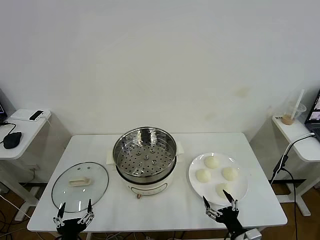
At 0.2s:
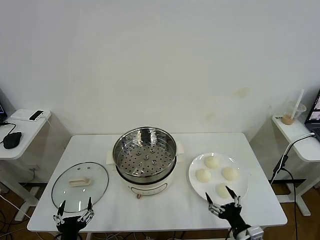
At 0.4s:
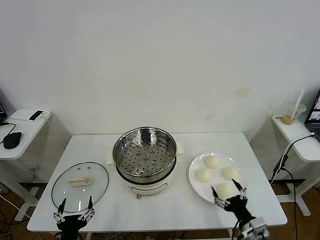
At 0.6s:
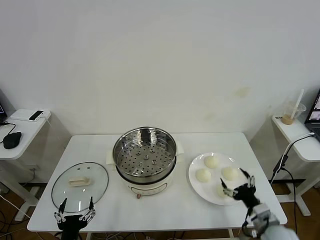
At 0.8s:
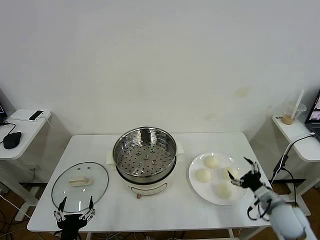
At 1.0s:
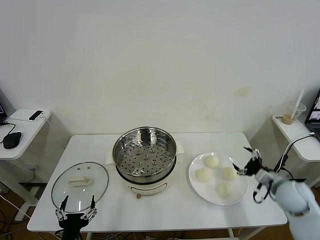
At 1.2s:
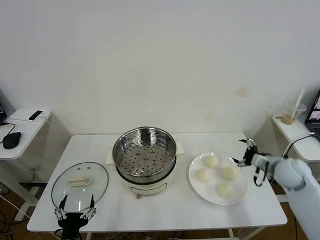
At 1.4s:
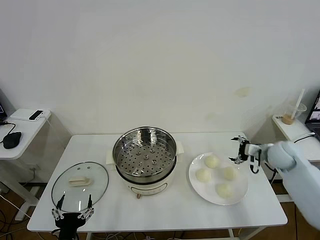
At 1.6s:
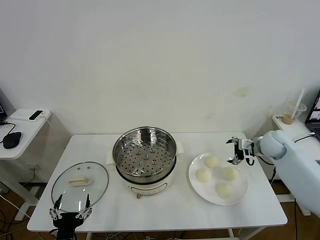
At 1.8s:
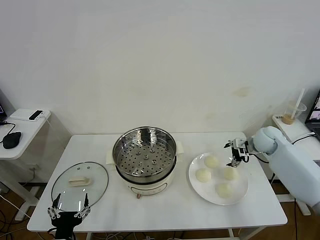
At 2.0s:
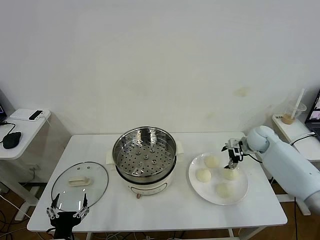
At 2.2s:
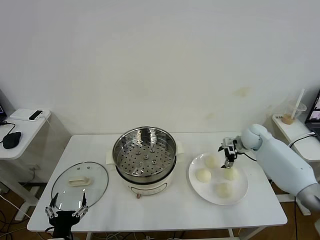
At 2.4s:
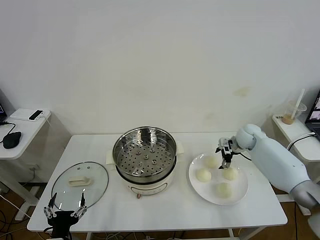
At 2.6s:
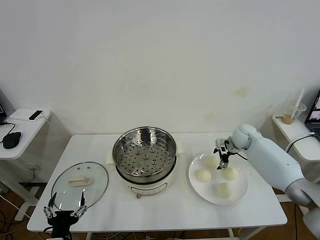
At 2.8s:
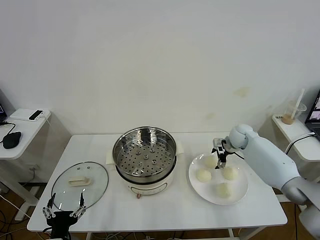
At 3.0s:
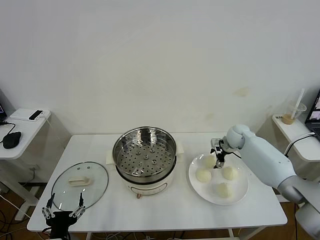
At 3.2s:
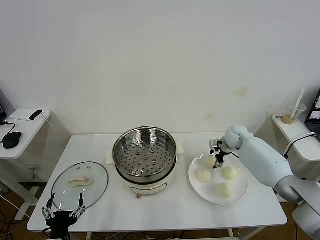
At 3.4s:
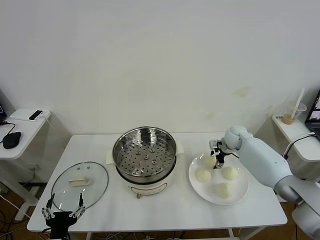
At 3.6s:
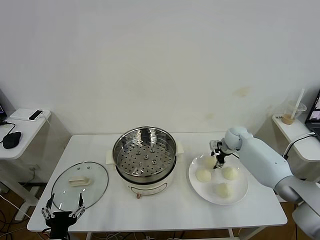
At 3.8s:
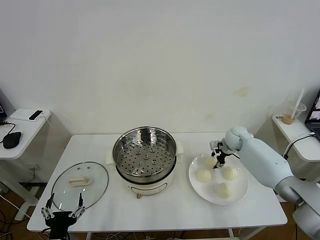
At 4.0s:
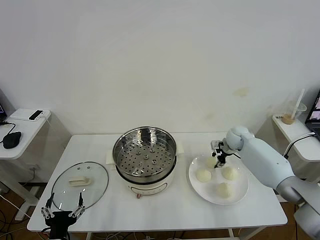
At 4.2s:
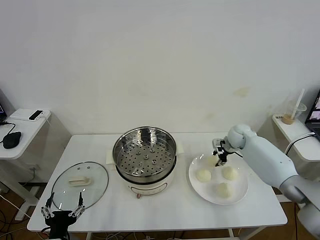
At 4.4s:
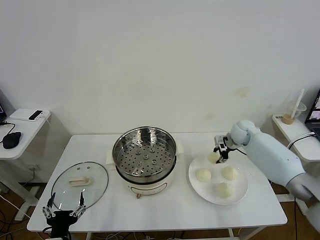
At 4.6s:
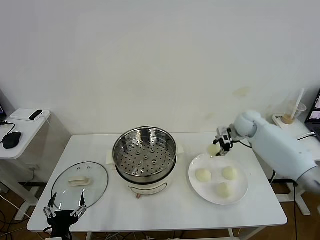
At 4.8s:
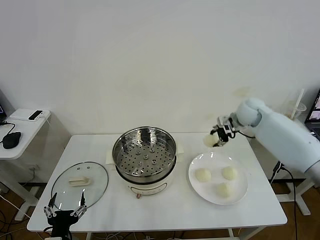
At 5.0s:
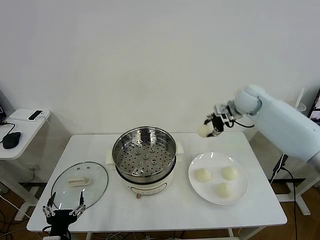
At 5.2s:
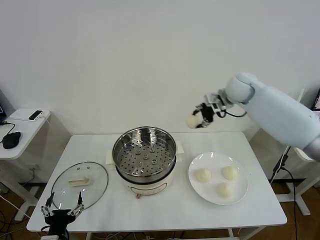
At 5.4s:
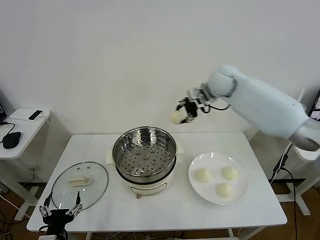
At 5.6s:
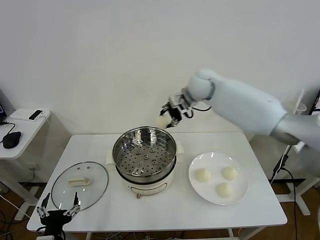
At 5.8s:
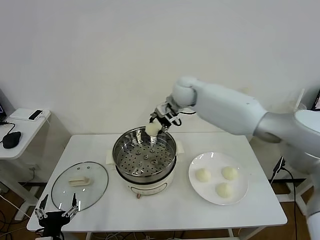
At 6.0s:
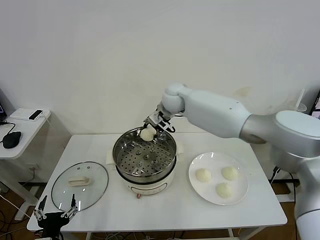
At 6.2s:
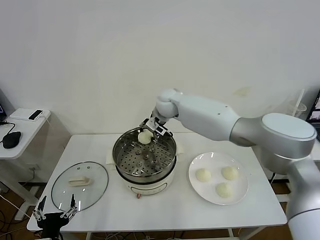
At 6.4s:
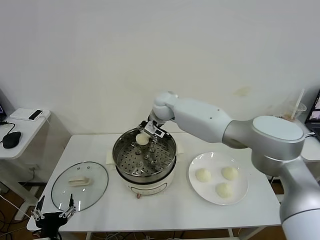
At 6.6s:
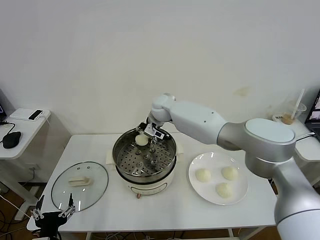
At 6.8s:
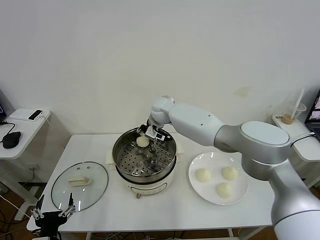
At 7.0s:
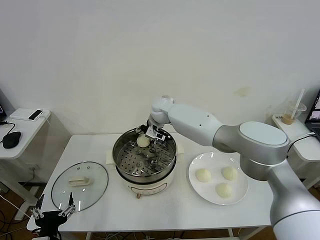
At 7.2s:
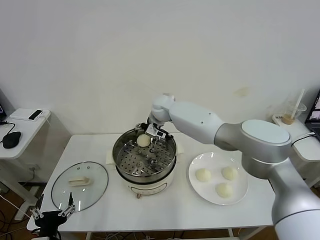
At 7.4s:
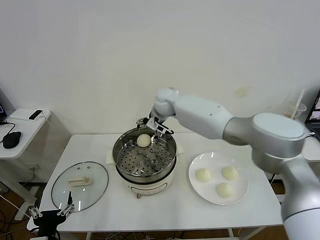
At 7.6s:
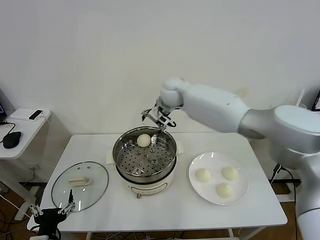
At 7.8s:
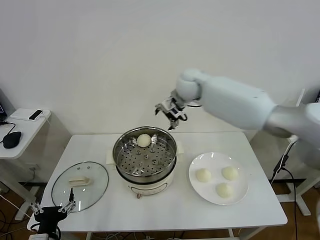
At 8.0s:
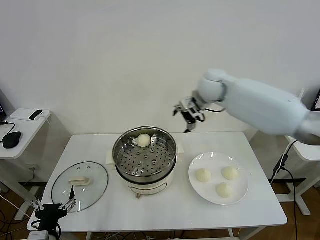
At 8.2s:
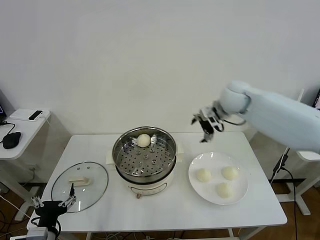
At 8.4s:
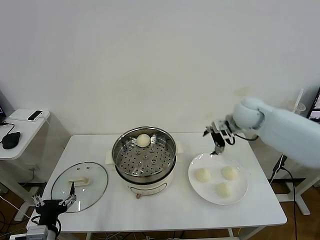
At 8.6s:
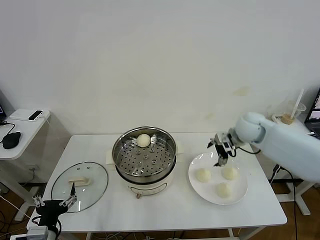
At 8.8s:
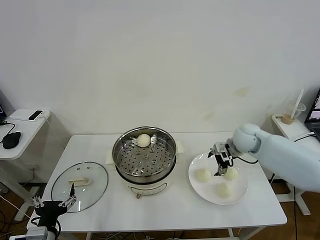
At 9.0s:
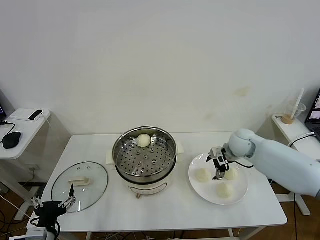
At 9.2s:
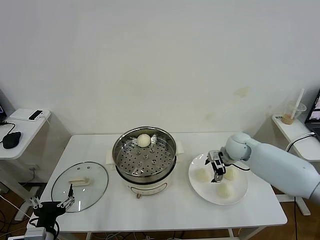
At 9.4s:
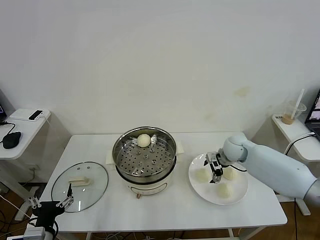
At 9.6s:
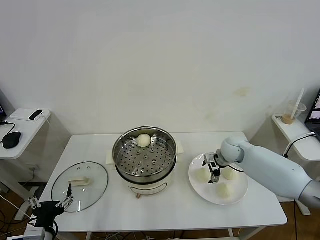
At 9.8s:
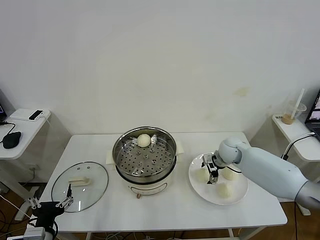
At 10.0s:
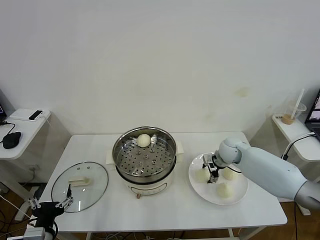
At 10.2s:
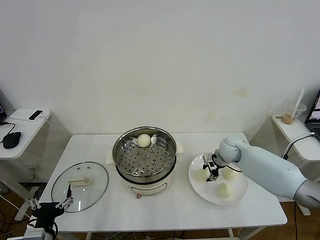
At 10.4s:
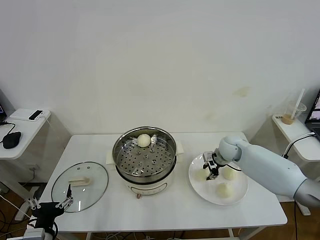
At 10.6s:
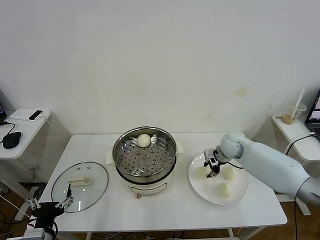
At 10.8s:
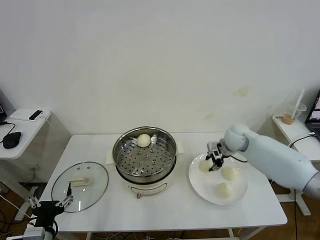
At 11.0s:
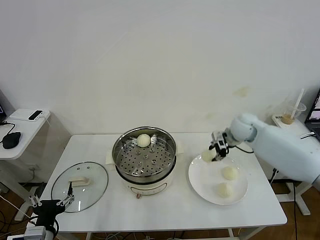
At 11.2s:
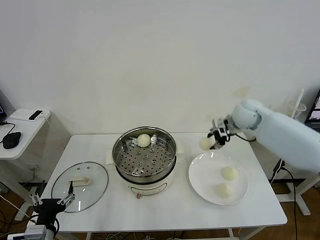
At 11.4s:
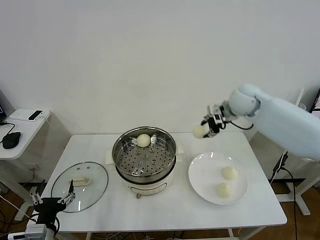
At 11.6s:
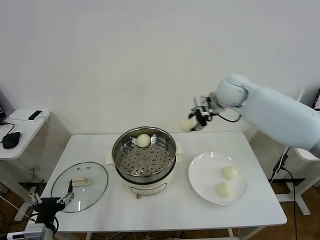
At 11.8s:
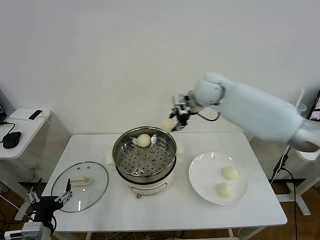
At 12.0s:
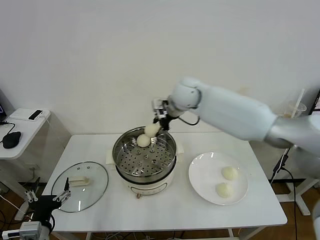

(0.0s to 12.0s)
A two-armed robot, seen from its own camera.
Task of the whole recording: take steamed baozi put them in steamer then cover it.
Step, 0.0s - 3.8s: Grasp the baozi in the plate with right gripper.
Step, 4.0s - 7.0s: Place the baozi on the steamer with right gripper.
Step, 7.4s - 10.2s: Grasp the baozi in the plate with right gripper.
1.6s - 3.0s: The right gripper moves to the left, forward and downward, roughly 10 cm.
3.0s - 4.4s: The right gripper shifts approximately 5 cm upward, and closes up.
4.4s - 6.0s: The right gripper travels to the left by approximately 30 cm.
6.0s - 7.6s: The right gripper is displaced upward by some 5 cm, and opens.
7.6s - 9.0s: The right gripper is displaced to the right, downward and backward by roughly 30 cm.
9.0s - 10.4s: The right gripper closes its fingers.
10.4s - 12.0s: The right gripper moves to the left and upward, approximately 30 cm.

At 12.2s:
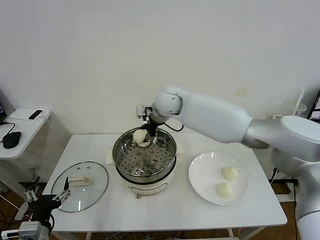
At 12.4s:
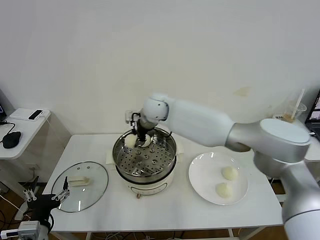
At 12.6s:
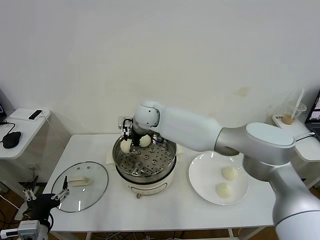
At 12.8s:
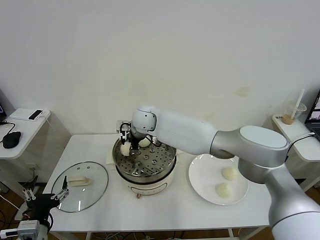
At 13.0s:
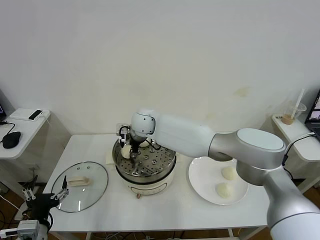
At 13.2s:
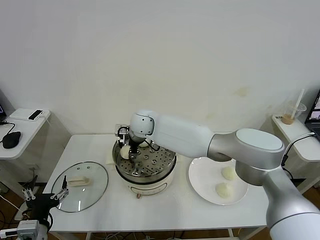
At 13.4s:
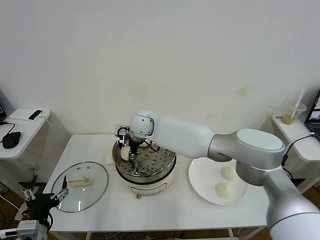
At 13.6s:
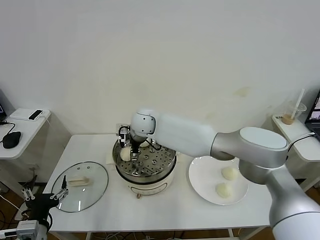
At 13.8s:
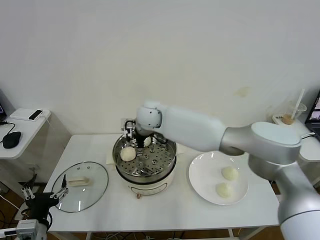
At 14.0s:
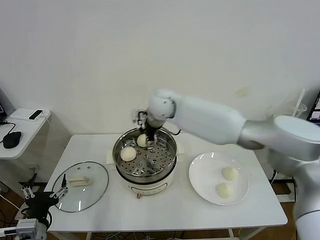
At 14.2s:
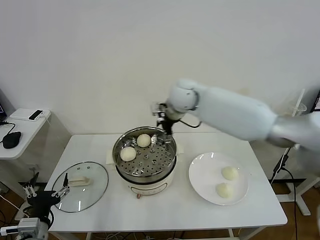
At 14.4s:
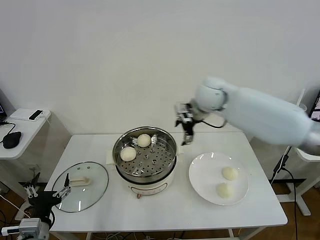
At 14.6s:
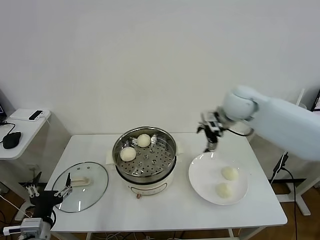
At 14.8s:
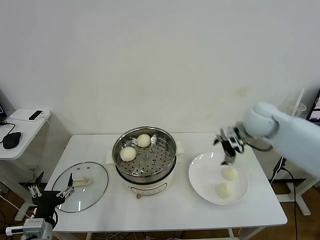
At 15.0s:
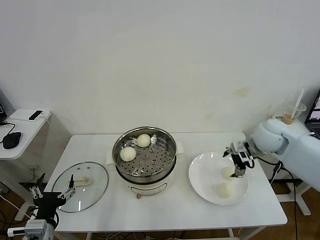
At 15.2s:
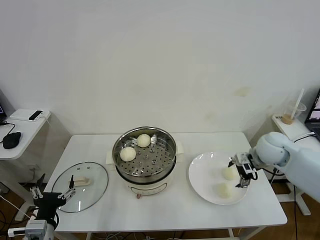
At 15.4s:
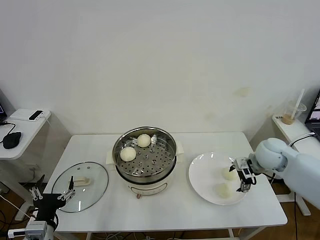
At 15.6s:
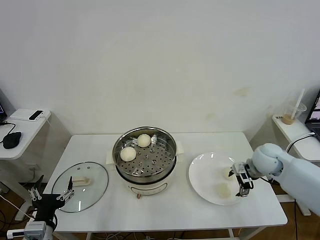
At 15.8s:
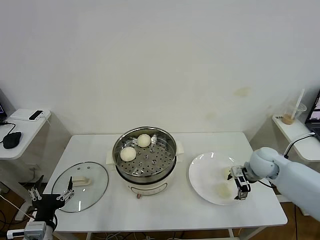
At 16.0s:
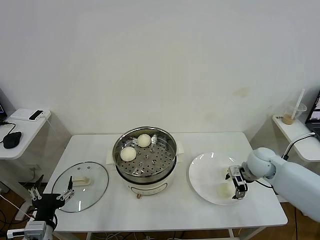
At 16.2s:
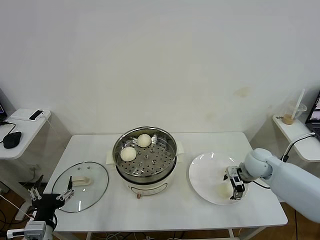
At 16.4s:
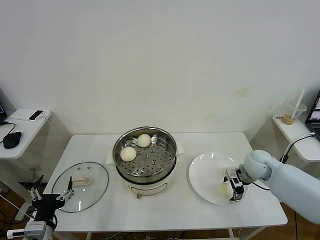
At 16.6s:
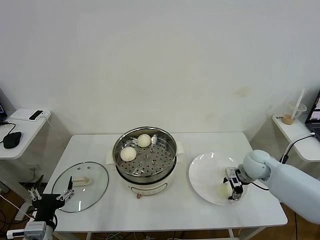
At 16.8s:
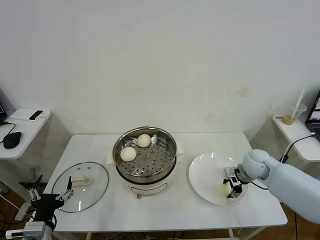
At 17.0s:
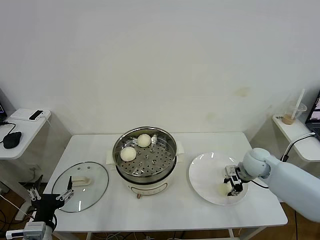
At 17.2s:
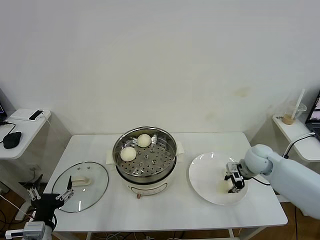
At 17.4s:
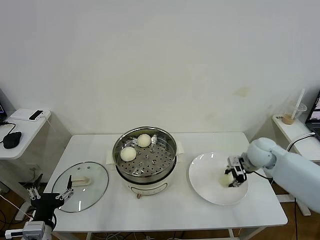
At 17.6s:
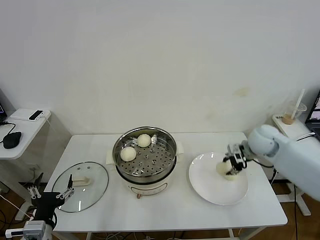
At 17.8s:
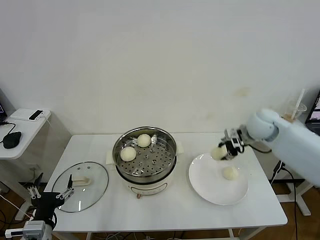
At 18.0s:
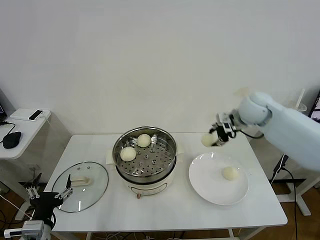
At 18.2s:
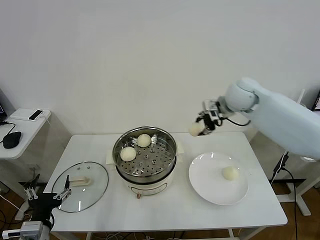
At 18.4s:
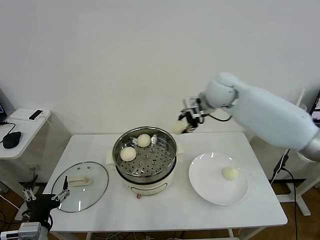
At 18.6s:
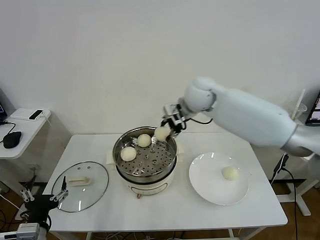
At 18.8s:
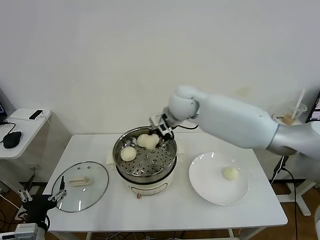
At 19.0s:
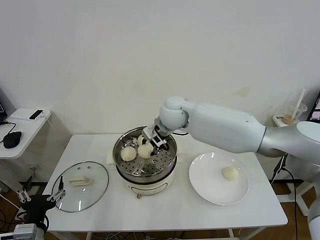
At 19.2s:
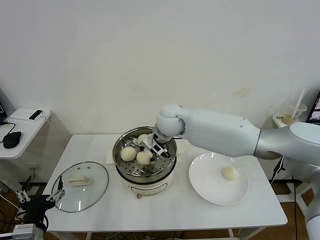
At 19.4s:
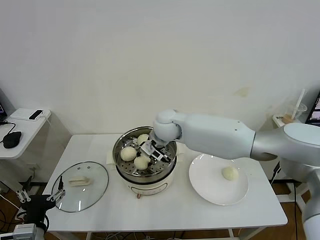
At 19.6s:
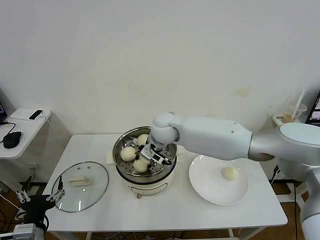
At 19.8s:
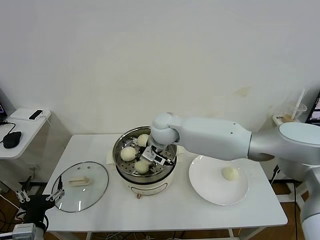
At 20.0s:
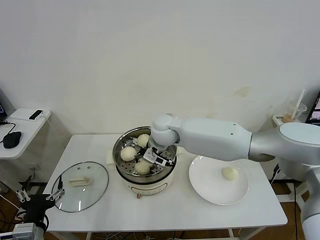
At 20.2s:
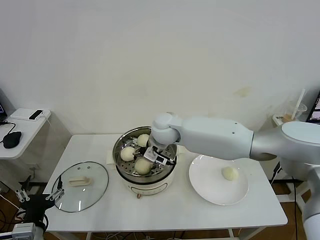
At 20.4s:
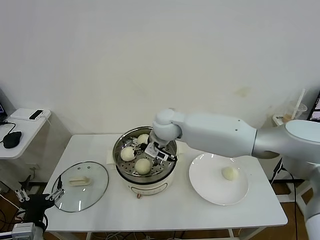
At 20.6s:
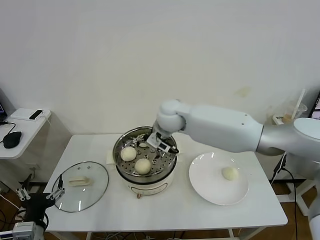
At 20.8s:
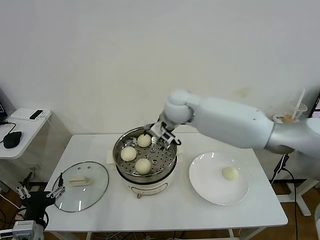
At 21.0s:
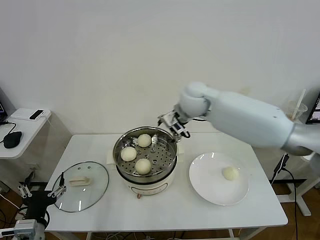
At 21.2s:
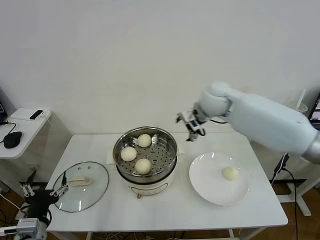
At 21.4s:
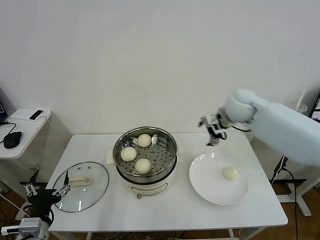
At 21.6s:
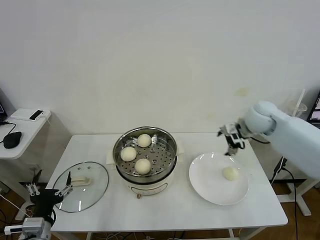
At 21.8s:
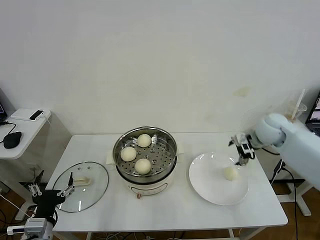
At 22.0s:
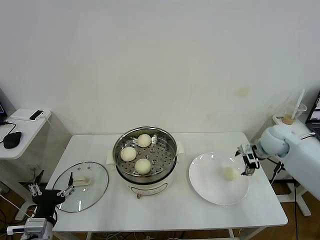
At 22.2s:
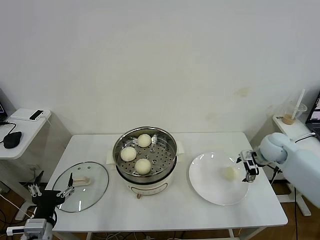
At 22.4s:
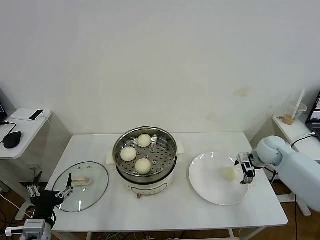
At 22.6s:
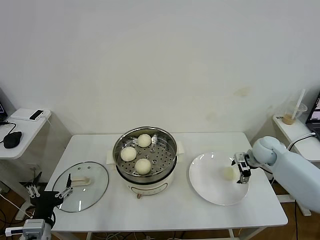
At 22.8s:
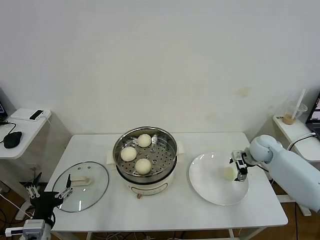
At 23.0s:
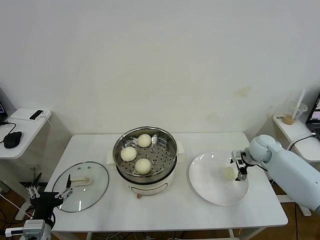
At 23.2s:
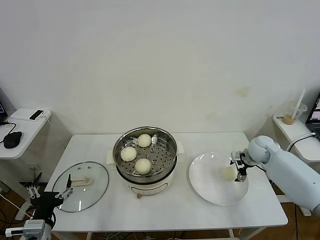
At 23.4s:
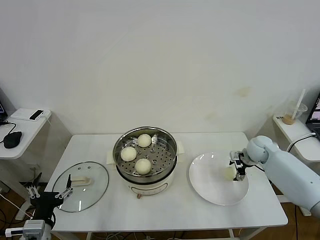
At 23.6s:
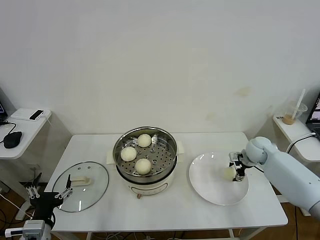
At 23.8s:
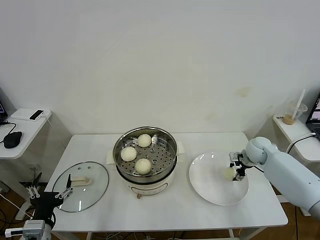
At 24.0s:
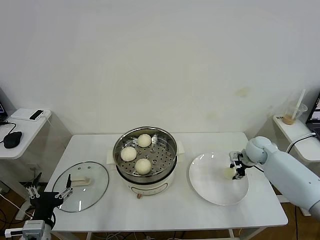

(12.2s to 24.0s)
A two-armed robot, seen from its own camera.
Task of the whole recording: take steamed baozi put them in steamer then cover it.
Step, 13.8s - 16.8s: Grasp the baozi in the plate with right gripper.
Step, 17.0s - 20.2s: Place the baozi on the steamer with right gripper.
Step, 20.6s - 24.0s: Grasp the baozi in the plate with right gripper.
12.2s - 13.6s: The right gripper shifts approximately 10 cm to the left and downward, and opens.
13.6s - 15.2s: The right gripper is displaced to the right by roughly 40 cm.
15.2s - 16.6s: The right gripper goes about 10 cm downward, and closes its fingers.
16.6s - 18.2s: The right gripper heads upward, to the left and forward, covering about 30 cm, and closes.
18.2s - 19.6s: The right gripper travels to the left and downward by some 25 cm.
19.6s - 21.0s: The right gripper shifts some 15 cm to the right and upward, and opens.
21.0s - 22.6s: The right gripper is displaced to the right and downward by roughly 35 cm.
22.6s - 24.0s: The right gripper closes its fingers.
